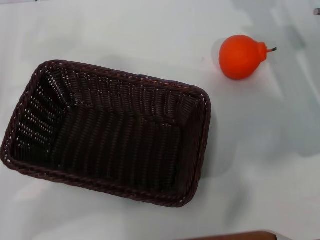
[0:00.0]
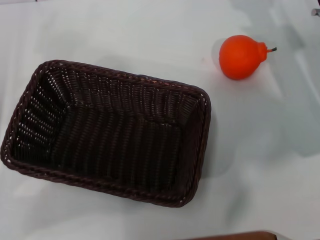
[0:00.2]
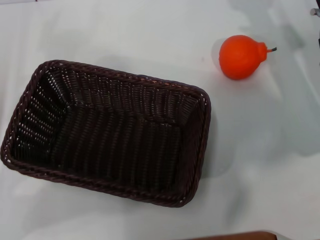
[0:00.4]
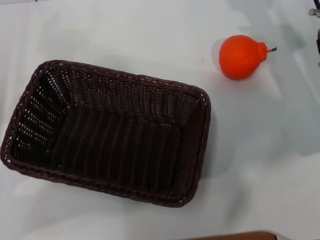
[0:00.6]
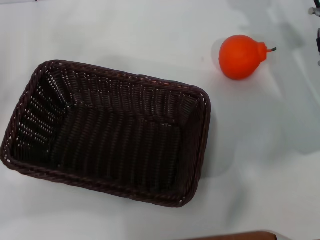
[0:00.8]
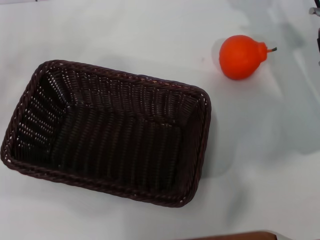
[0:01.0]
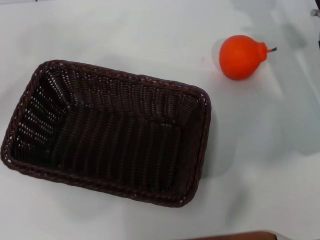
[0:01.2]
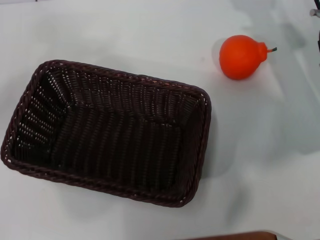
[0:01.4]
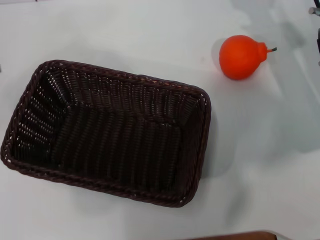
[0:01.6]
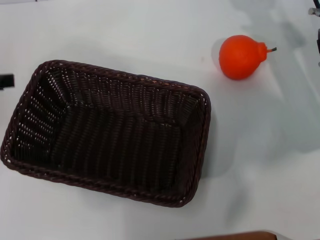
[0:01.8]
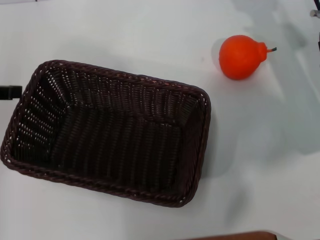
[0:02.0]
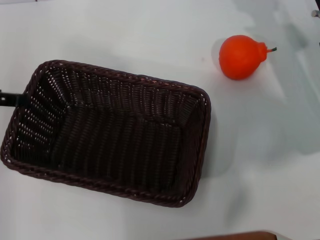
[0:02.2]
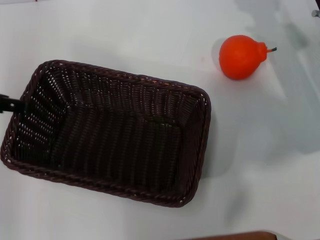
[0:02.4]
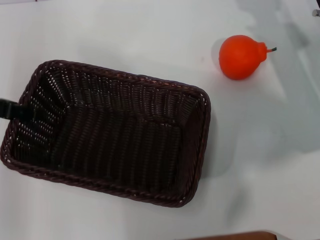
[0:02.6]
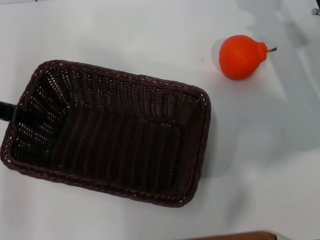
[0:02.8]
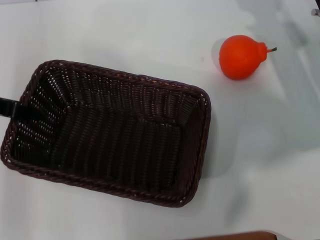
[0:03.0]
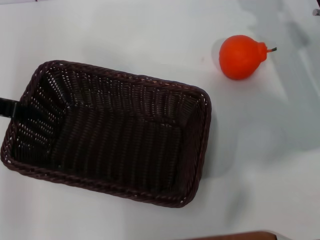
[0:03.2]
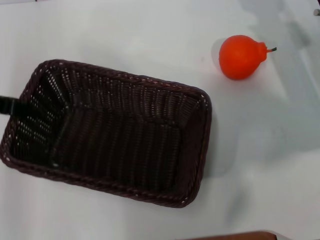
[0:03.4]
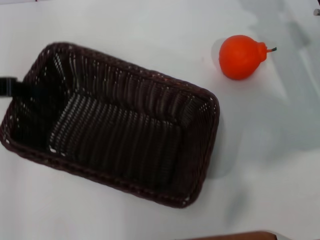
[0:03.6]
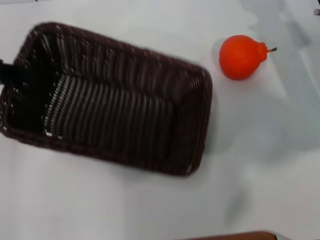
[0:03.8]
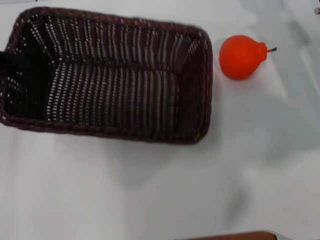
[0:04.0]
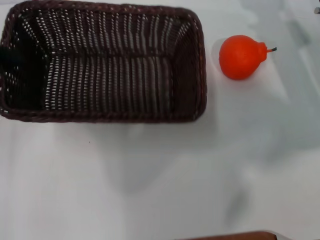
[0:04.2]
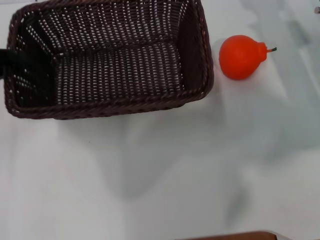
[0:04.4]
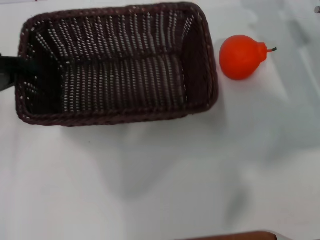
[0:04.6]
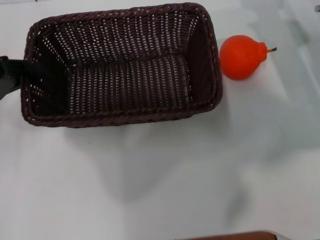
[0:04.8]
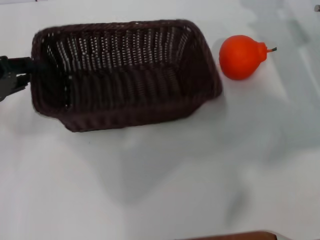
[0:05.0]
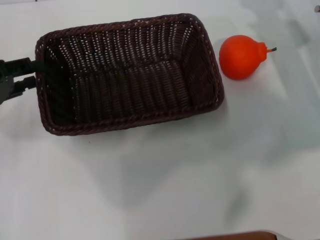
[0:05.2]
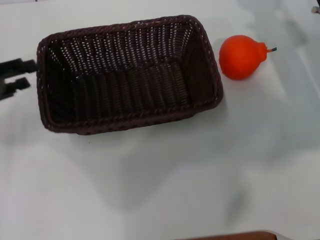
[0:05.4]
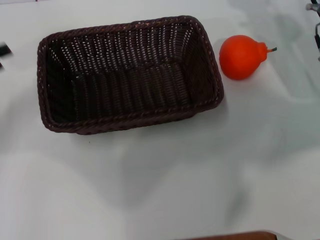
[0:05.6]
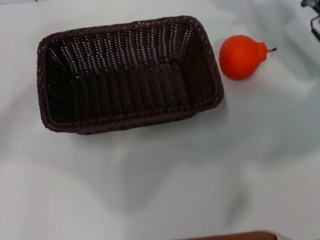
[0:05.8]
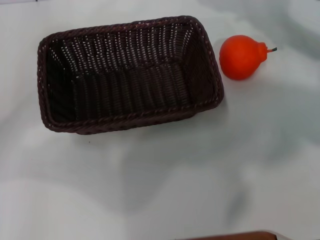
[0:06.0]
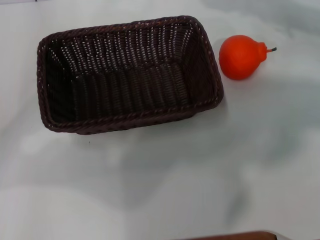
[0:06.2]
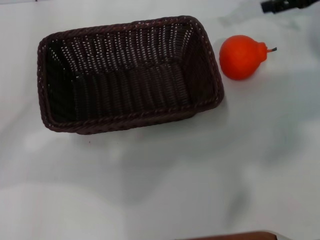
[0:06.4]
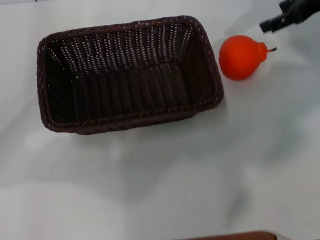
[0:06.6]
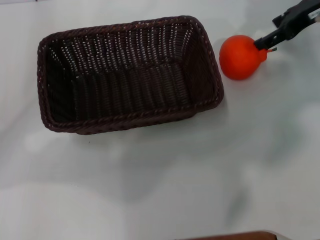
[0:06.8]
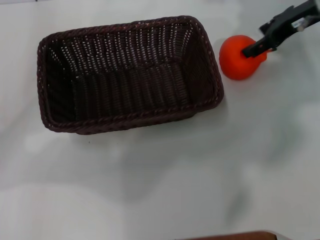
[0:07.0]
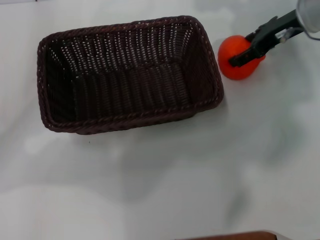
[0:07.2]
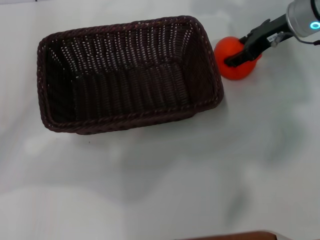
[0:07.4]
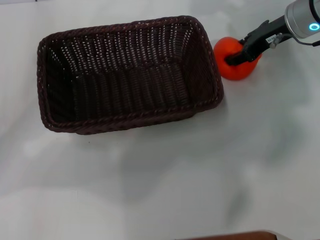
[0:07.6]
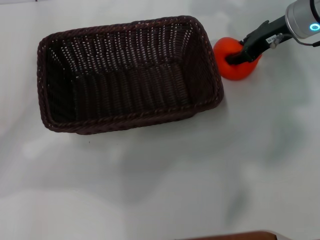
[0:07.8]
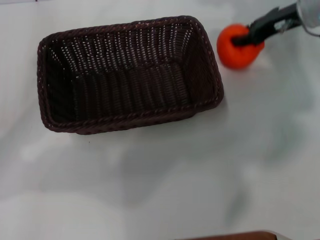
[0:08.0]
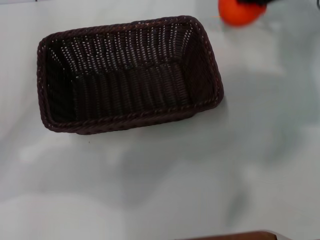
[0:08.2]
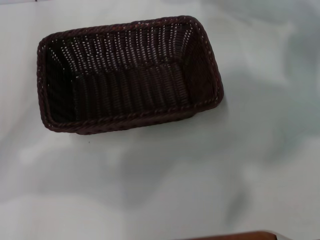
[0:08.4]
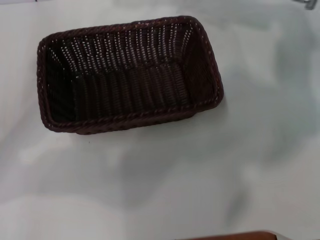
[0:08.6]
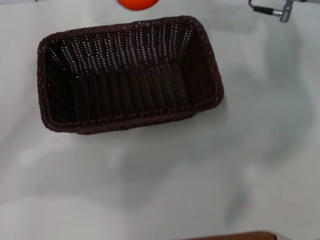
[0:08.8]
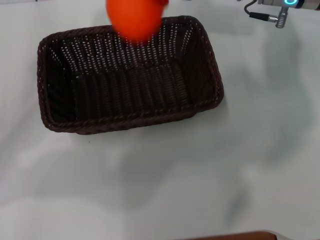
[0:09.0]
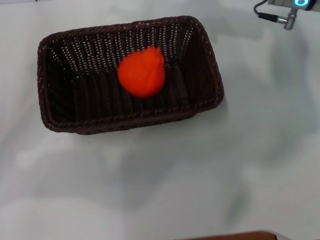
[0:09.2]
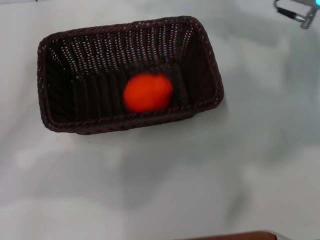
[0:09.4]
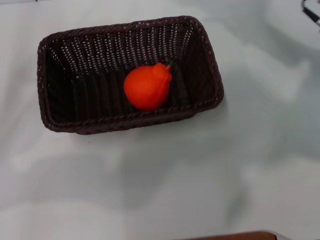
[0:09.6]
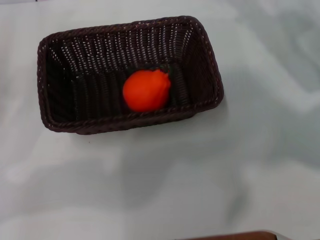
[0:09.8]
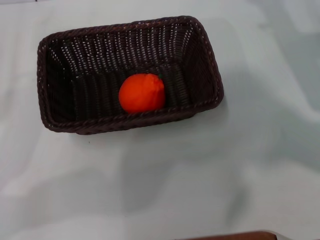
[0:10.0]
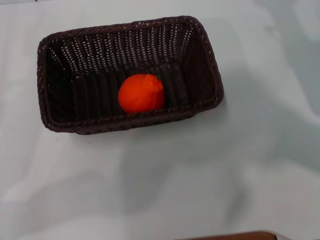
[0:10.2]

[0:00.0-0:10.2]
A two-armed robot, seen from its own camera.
Task of the whole recording: the left gripper pick up the black basket and place it horizontally in the middle of the table, the right gripper pick up the orange and place it into the black basket.
Step, 0:00.0 to 0:03.6: Pick up the dark basket with the left gripper.
Step, 0:03.8 to 0:05.2: Place the dark basket in the center of view with the left gripper.
Step, 0:05.4 to 0:08.0: Pick up the orange with the right gripper.
Step, 0:08.2 to 0:09.2: Place the orange into the dark basket with the right gripper.
0:00.0 to 0:01.4: The left gripper is displaced upward and to the left by about 15 cm.
0:01.4 to 0:03.0: The left gripper travels to the right by roughly 10 cm.
0:03.0 to 0:04.4: The left gripper closes.
0:04.4 to 0:05.8: The left gripper opens.
0:07.2 to 0:08.8: The right gripper shifts some 5 cm to the left, and closes its fingers.
0:08.8 to 0:10.2: The right gripper heads to the right, downward and backward, covering approximately 20 cm, and opens. Meanwhile the left gripper shifts by approximately 5 cm.
